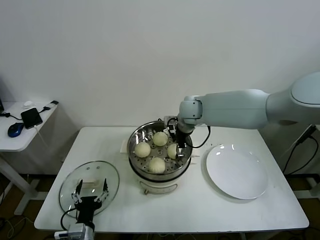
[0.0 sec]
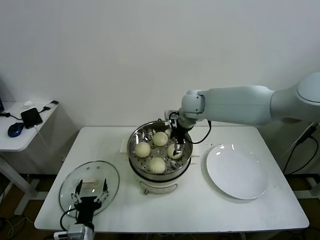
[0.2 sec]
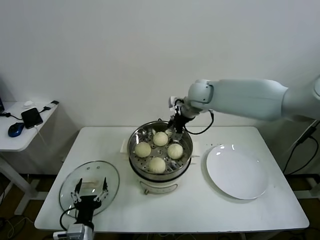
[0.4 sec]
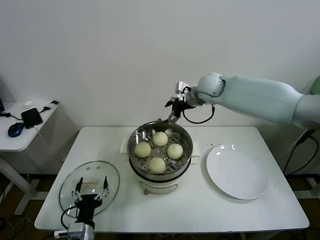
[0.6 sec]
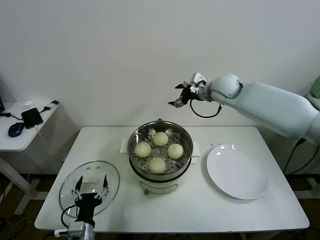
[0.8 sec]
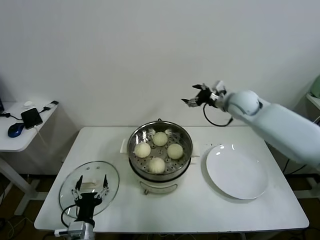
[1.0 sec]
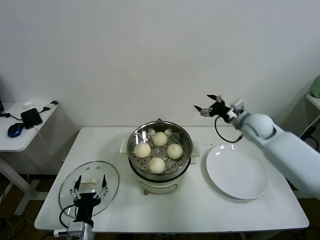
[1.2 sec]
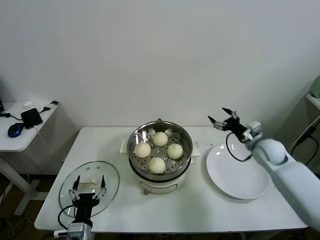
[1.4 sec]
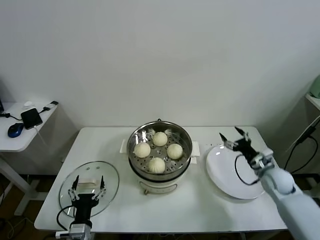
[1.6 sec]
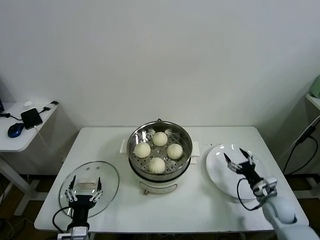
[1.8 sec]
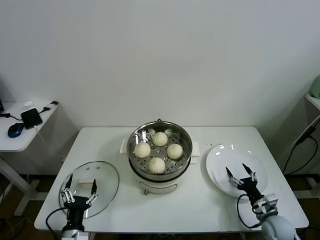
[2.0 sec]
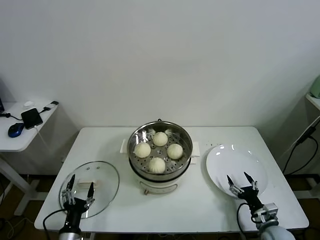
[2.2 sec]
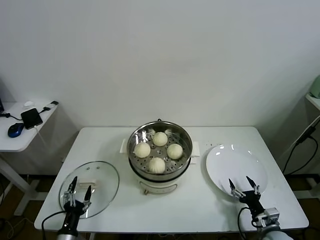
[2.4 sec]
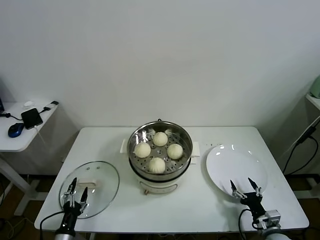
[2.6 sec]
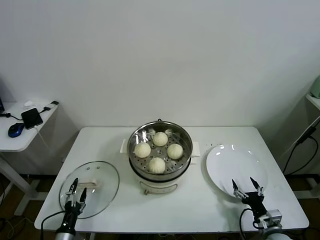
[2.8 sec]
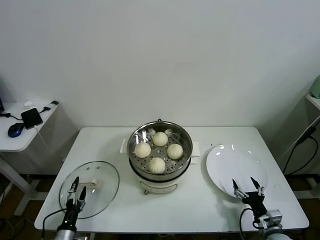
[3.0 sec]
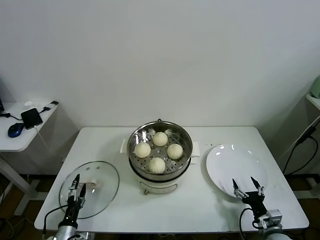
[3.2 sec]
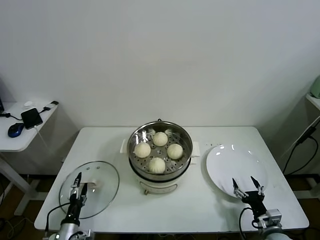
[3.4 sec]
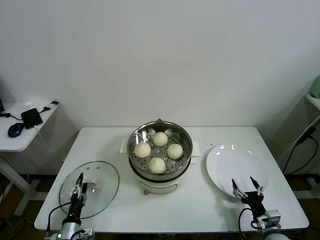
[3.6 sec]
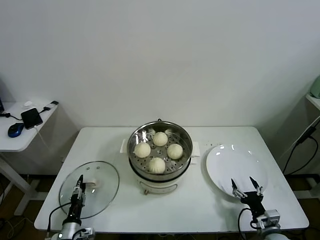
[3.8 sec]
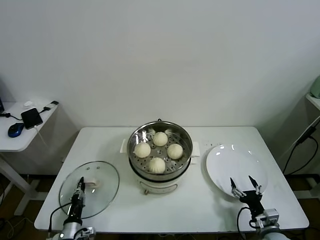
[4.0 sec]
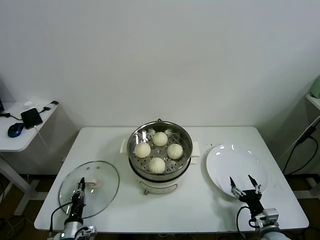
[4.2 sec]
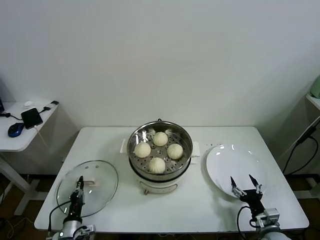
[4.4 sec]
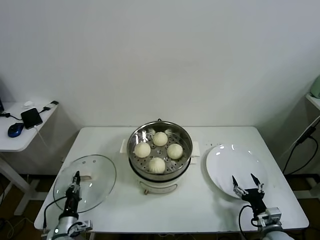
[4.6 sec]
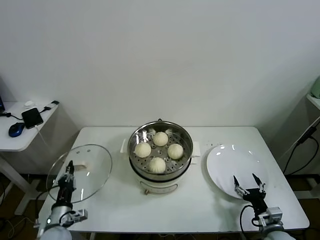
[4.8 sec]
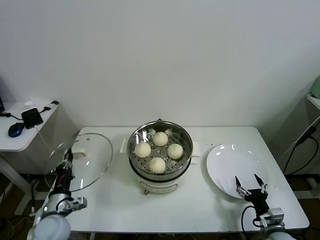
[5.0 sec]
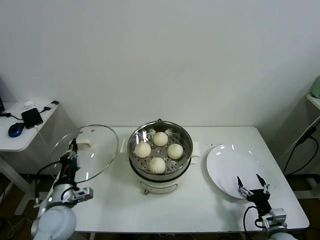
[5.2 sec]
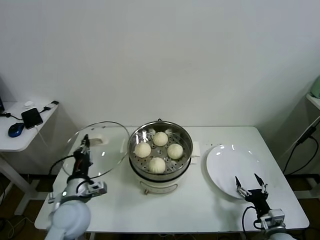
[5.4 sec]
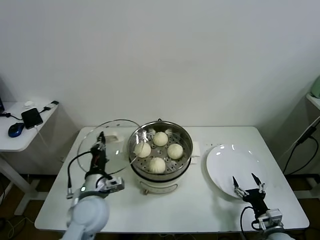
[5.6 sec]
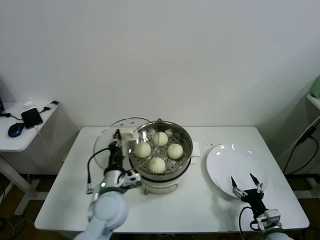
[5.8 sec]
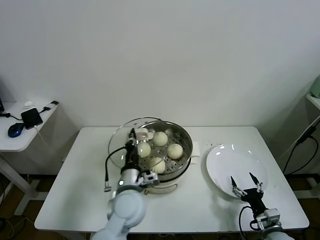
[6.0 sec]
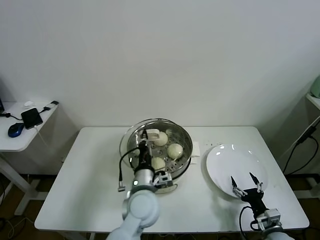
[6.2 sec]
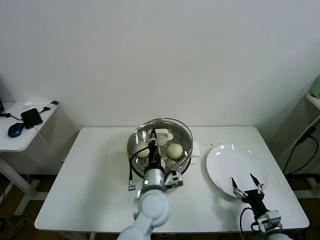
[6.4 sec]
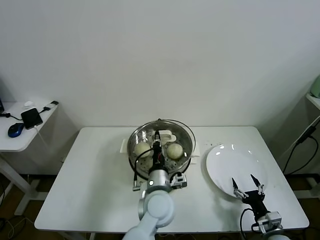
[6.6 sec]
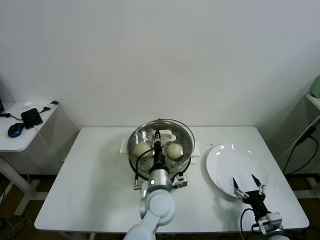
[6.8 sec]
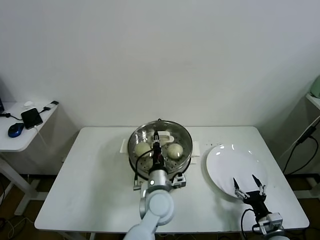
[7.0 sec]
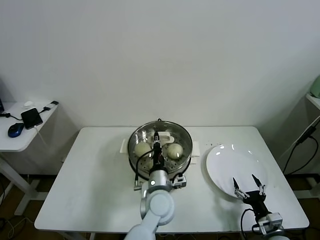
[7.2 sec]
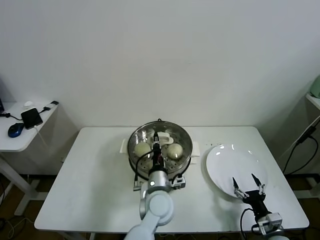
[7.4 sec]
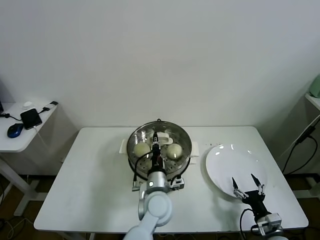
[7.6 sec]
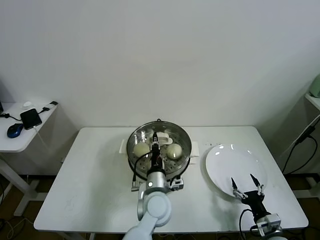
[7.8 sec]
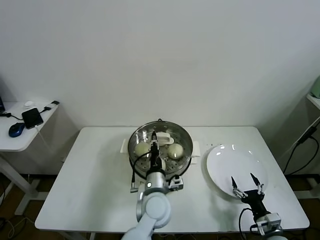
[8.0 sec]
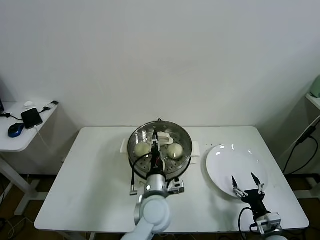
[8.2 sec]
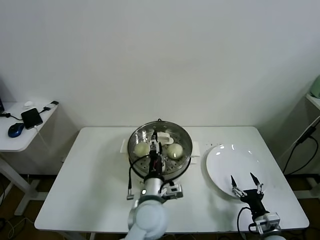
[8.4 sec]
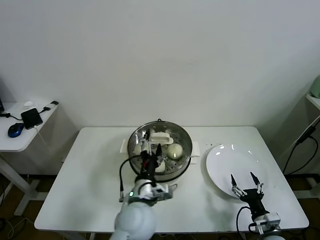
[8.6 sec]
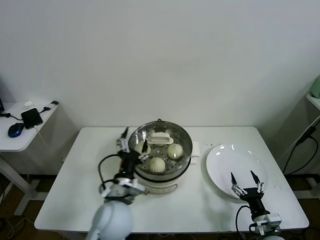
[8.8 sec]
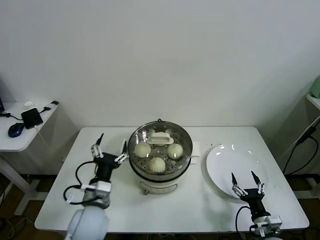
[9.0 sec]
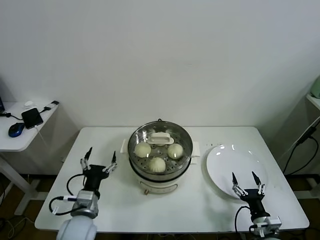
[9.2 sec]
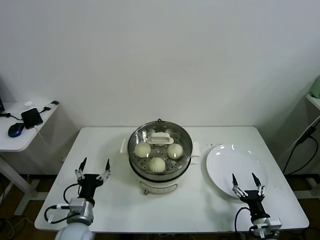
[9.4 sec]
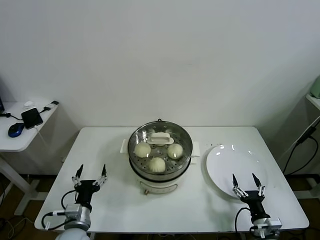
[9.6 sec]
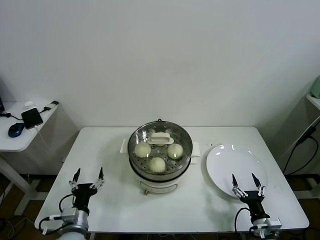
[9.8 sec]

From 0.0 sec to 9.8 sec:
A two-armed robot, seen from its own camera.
Task of the whole recording: take steamed baozi put them in steamer.
Step, from 0.4 sec to 4.0 sec: Grasp the pot lid with left gripper.
Step, from 4.2 sec to 8.0 sec: Place the pot lid on the steamer with left gripper.
From 0.0 sec to 1.4 sec: The right gripper heads to the right and downward, covering approximately 30 cm.
From 1.4 sec to 2.8 sec: The right gripper is displaced backward and downward by some 30 cm; the left gripper goes approximately 15 cm to the left and downward.
From 2.8 sec to 4.2 sec: The left gripper changes place by roughly 5 cm, and closes up.
From 4.2 sec to 5.6 sec: The left gripper heads upward and to the right, covering approximately 25 cm.
From 5.6 sec to 7.0 sec: The left gripper heads to the right, covering roughly 20 cm.
From 7.0 sec to 8.4 sec: The left gripper opens its fingers.
From 8.4 sec to 9.8 sec: The left gripper heads to the left and downward, covering some 25 cm.

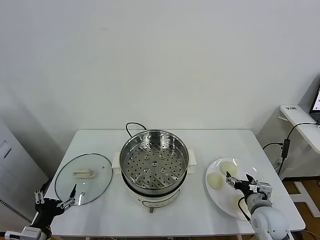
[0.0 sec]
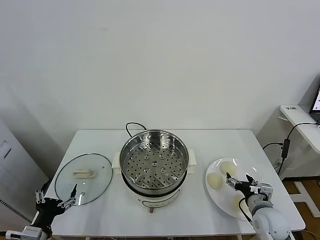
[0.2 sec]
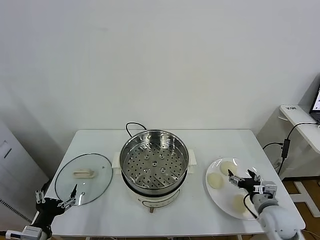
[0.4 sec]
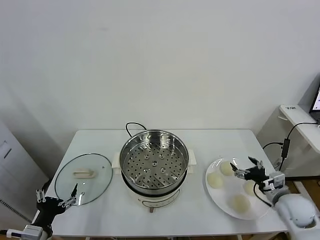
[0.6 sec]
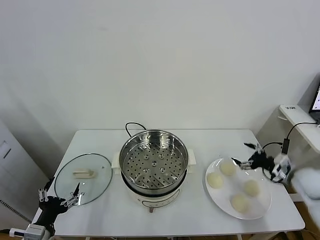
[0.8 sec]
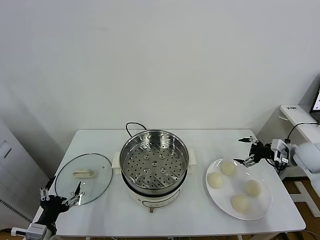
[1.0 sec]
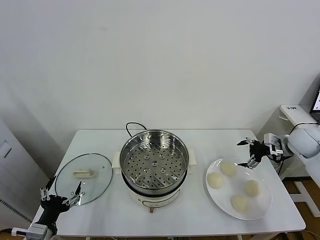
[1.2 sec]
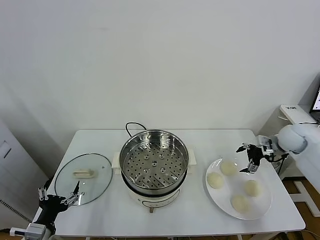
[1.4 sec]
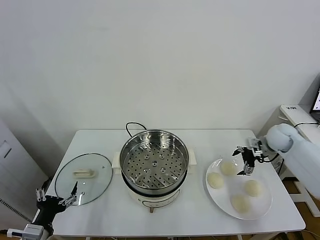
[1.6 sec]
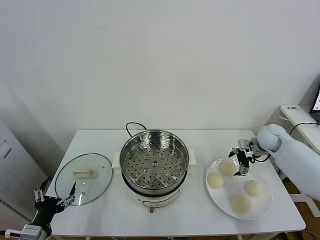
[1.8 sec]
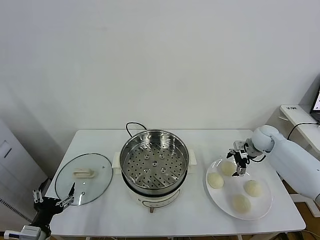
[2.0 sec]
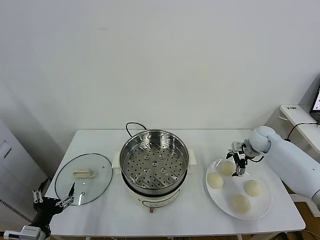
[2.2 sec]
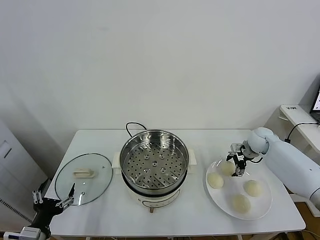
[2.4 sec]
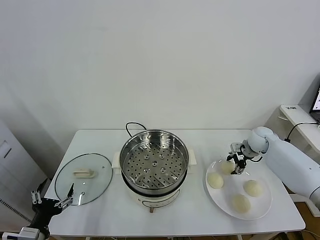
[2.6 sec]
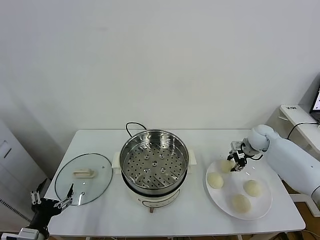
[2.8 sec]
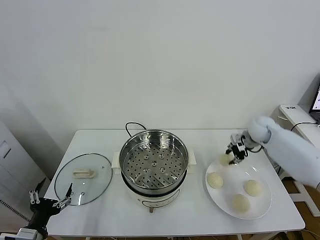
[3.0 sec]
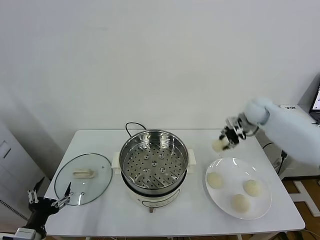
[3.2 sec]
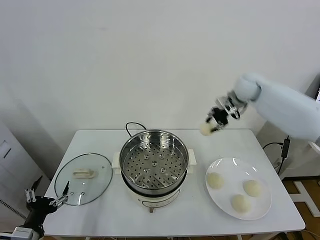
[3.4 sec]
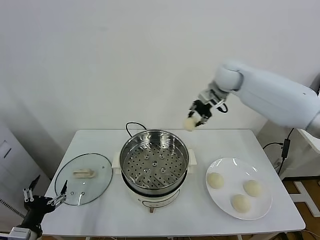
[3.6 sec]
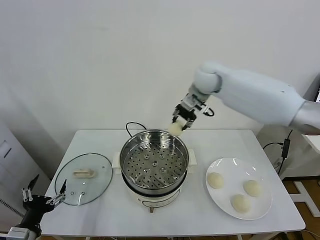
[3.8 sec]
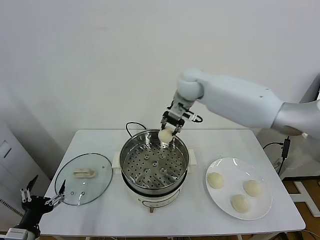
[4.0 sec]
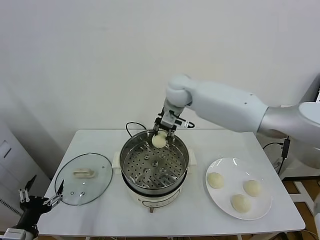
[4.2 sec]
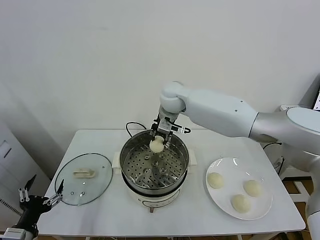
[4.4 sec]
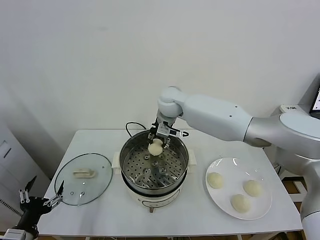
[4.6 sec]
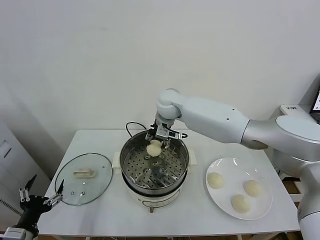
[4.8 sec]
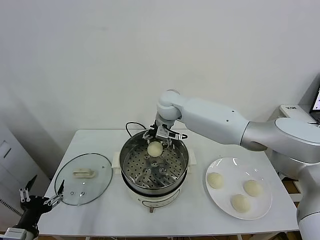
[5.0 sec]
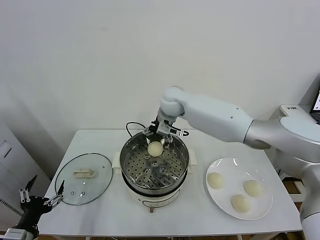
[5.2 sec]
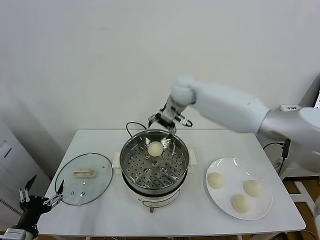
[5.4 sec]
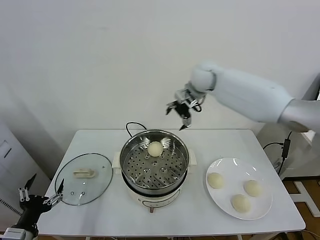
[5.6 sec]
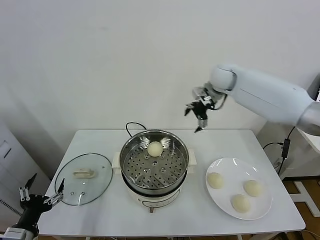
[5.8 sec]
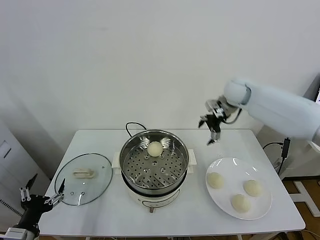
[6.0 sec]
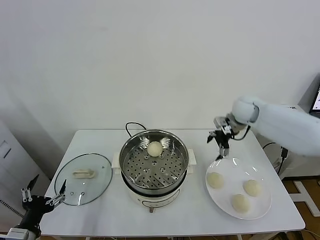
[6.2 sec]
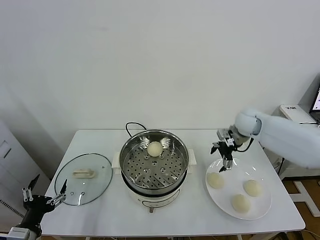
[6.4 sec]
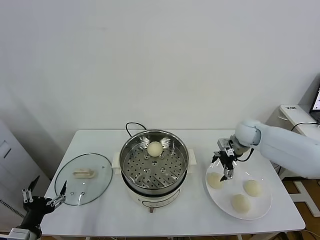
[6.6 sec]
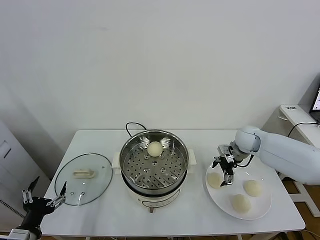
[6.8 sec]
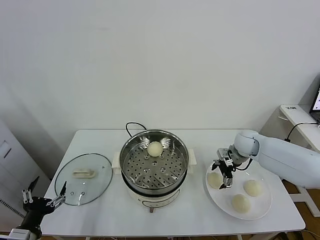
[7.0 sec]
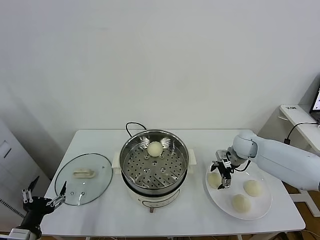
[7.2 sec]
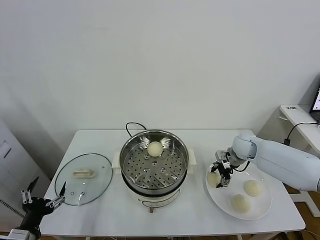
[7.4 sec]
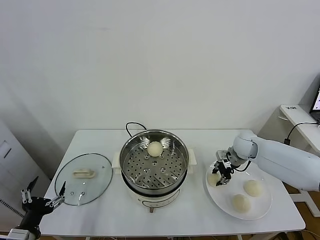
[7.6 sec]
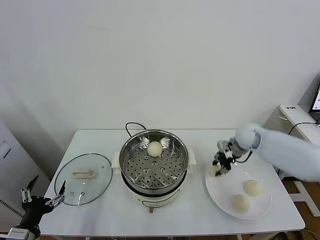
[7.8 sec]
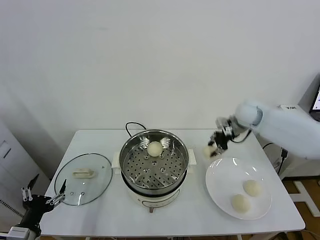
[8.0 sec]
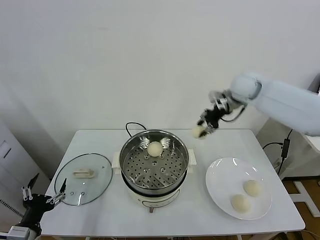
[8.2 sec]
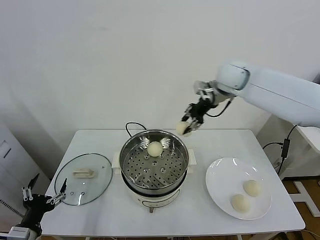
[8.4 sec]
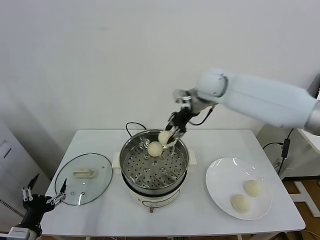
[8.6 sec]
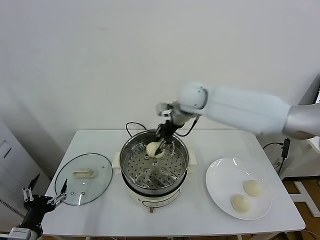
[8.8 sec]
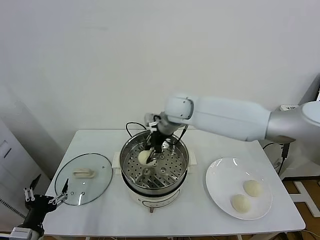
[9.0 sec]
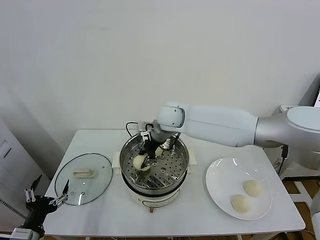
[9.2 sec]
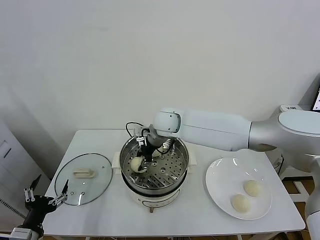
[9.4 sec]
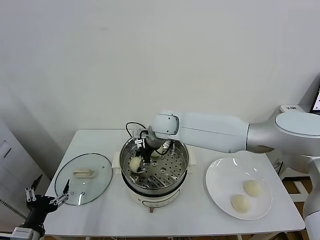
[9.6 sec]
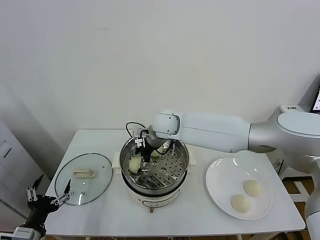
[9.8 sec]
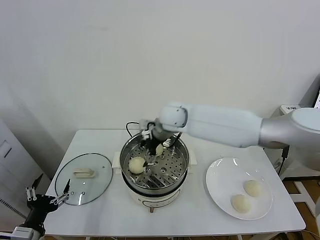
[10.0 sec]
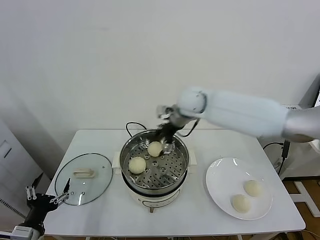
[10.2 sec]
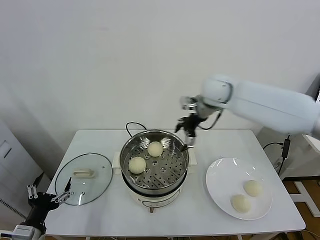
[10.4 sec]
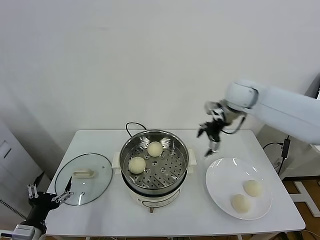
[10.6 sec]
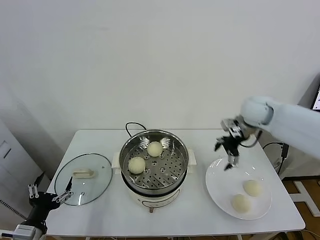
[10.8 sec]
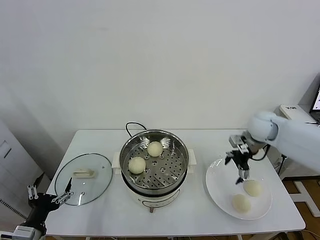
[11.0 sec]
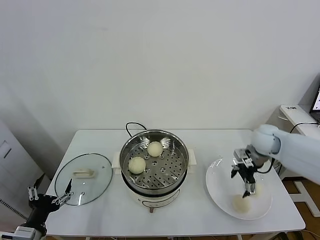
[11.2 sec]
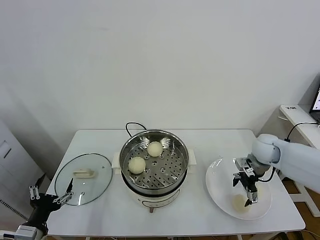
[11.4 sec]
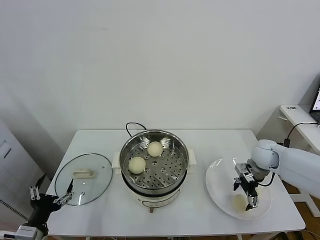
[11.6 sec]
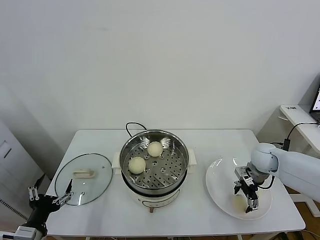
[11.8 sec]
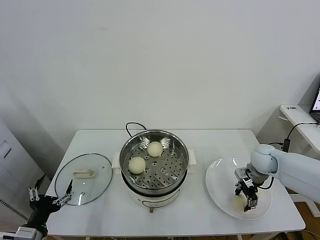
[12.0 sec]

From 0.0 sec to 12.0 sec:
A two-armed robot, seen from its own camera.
Task of the whole recording: take steamed baozi put them in steamer.
Step, from 0.0 sec to 2.4 sec: Grasp the baozi in the plate with right gripper.
Step, from 2.6 sec to 5.0 sec: Place the baozi on the steamer with right gripper.
Step, from 5.2 sec to 7.4 sec: Grasp the baozi in the plate with right gripper.
Step, from 7.6 sec to 9.8 sec: Place the baozi on the steamer with right gripper.
Step, from 10.0 sec to 12.0 sec: Grasp the baozi in the plate with right gripper.
From 1.6 sec to 3.0 sec: The right gripper moves to the left and upward, approximately 5 cm, and closes up.
From 3.0 sec to 4.4 sec: The right gripper goes about 35 cm to the left.
From 4.4 sec to 6.0 sec: The right gripper travels to the right by roughly 25 cm, and opens up.
From 6.0 sec to 7.6 sec: The right gripper shifts some 15 cm downward and backward, and closes.
From 7.6 sec to 9.0 sec: The right gripper moves to the left and upward, about 30 cm.
From 9.0 sec to 10.4 sec: The right gripper shifts about 15 cm to the right and upward, and opens up.
From 10.4 sec to 12.0 sec: The right gripper heads downward and to the right, covering approximately 30 cm, and closes.
